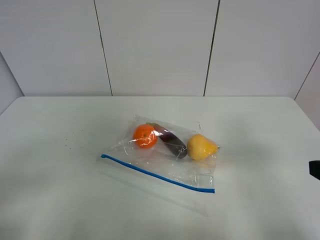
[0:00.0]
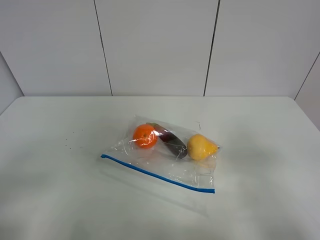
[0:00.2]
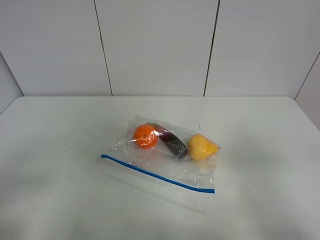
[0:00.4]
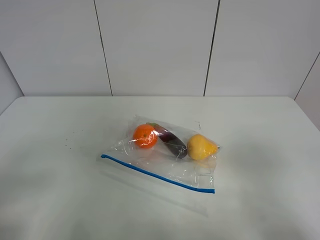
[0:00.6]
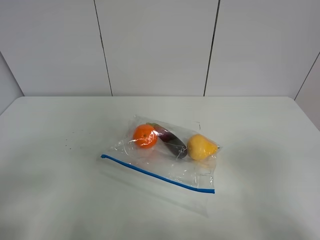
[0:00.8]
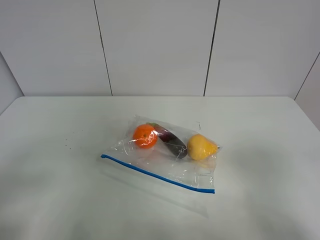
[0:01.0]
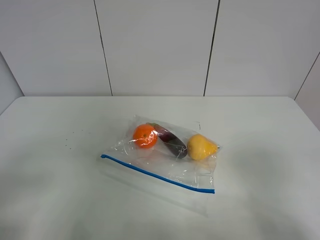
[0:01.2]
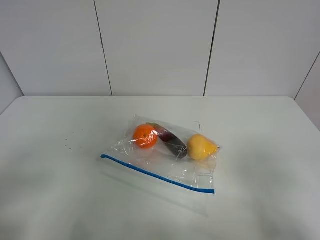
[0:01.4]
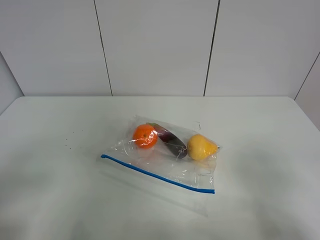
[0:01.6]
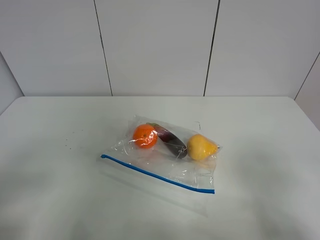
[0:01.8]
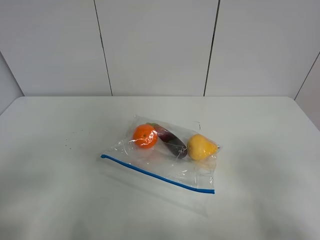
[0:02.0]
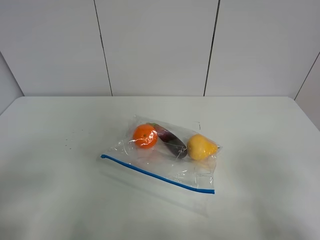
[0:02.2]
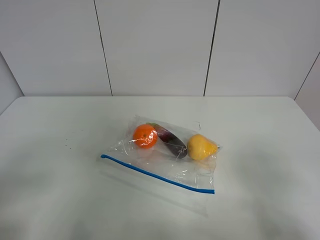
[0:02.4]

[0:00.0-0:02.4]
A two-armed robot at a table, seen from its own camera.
0:01.2 to 0:02.4: The two grippers keep their place.

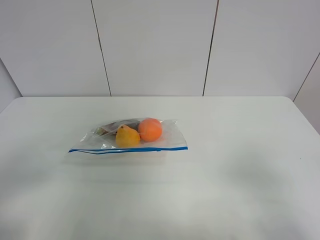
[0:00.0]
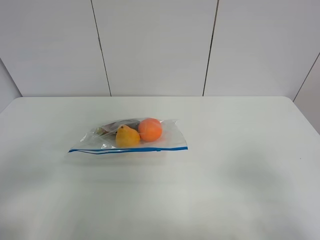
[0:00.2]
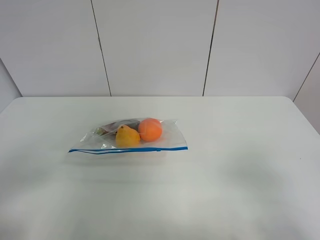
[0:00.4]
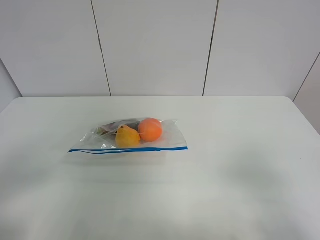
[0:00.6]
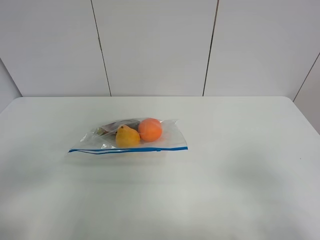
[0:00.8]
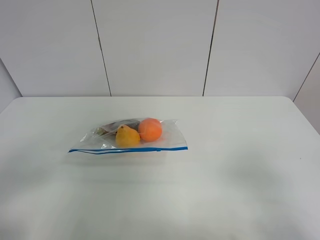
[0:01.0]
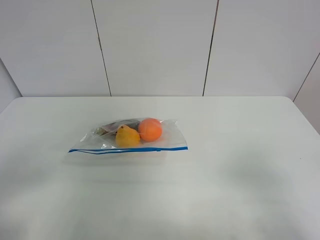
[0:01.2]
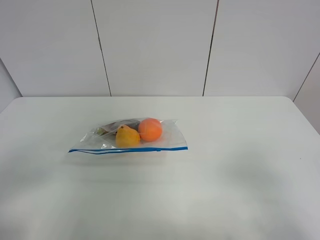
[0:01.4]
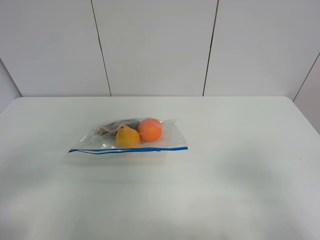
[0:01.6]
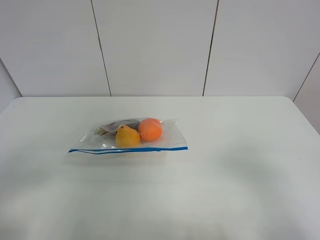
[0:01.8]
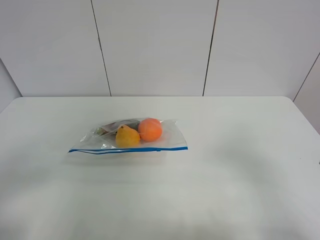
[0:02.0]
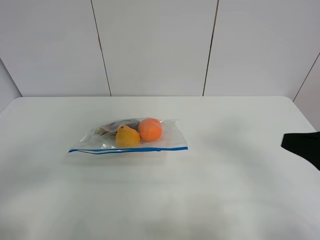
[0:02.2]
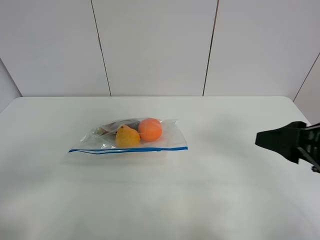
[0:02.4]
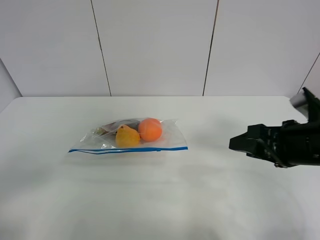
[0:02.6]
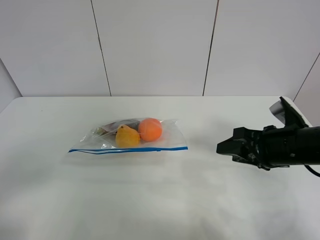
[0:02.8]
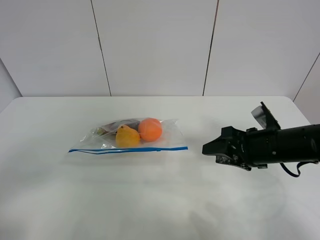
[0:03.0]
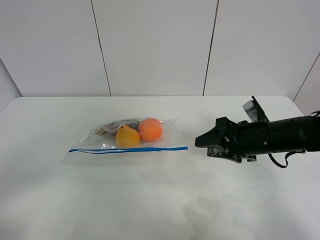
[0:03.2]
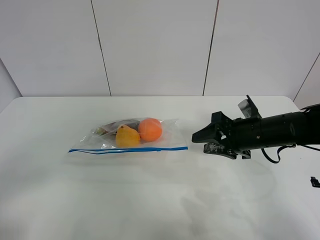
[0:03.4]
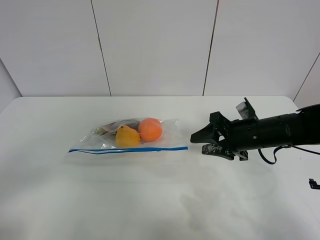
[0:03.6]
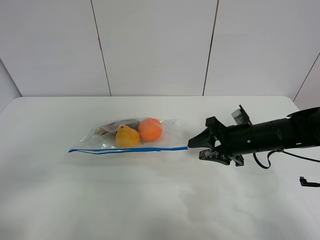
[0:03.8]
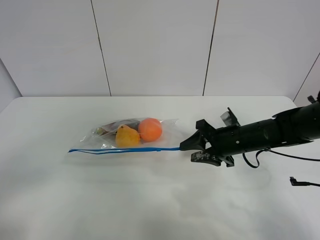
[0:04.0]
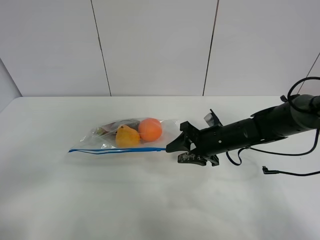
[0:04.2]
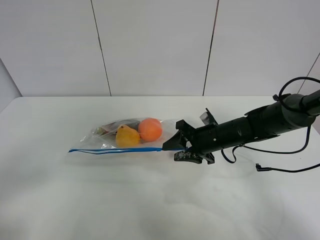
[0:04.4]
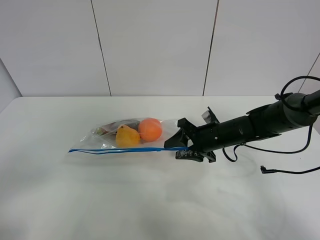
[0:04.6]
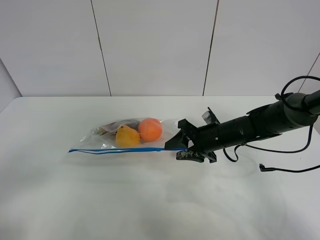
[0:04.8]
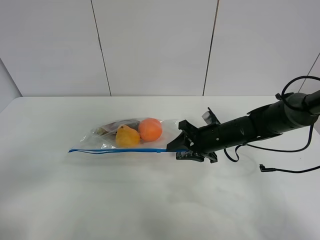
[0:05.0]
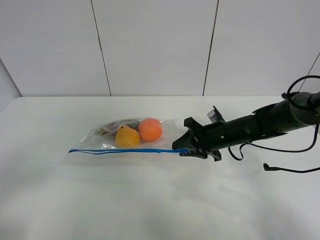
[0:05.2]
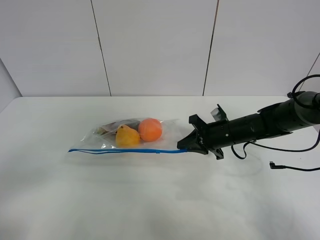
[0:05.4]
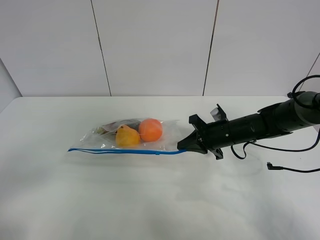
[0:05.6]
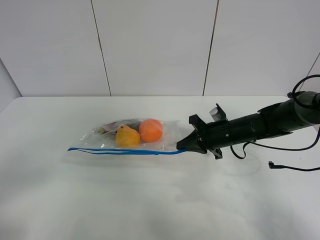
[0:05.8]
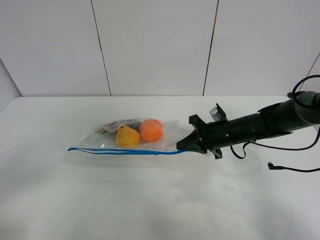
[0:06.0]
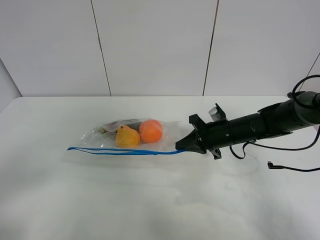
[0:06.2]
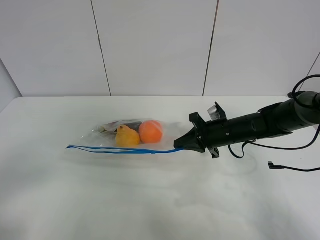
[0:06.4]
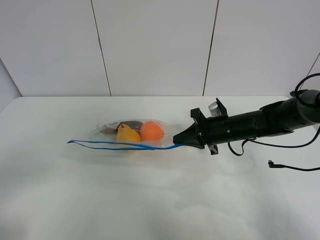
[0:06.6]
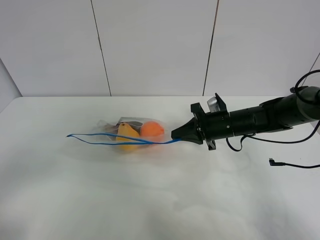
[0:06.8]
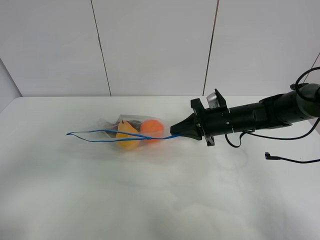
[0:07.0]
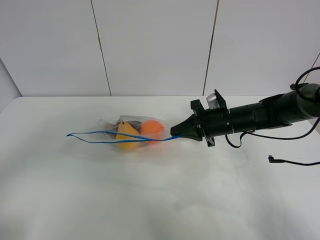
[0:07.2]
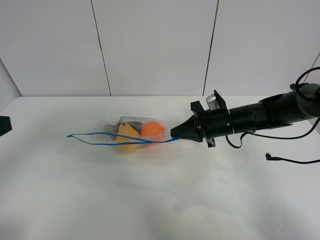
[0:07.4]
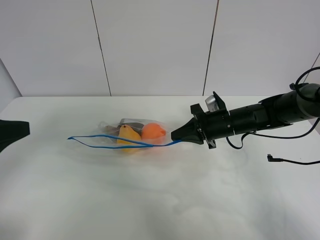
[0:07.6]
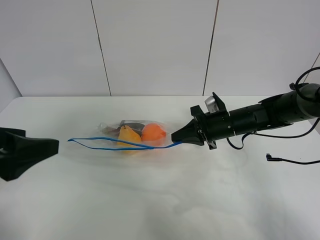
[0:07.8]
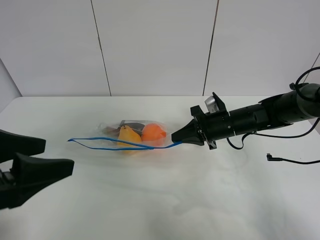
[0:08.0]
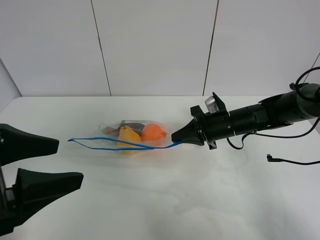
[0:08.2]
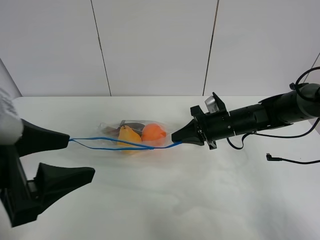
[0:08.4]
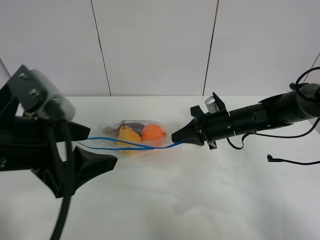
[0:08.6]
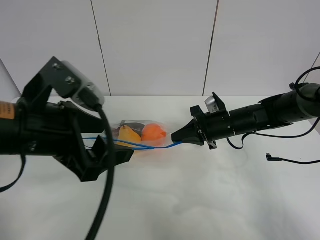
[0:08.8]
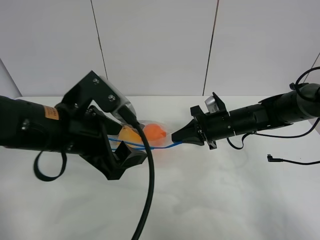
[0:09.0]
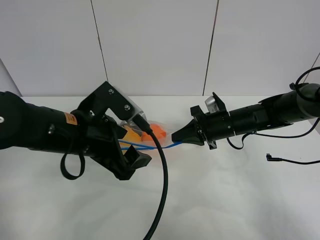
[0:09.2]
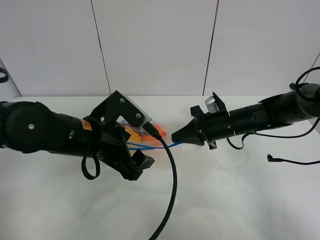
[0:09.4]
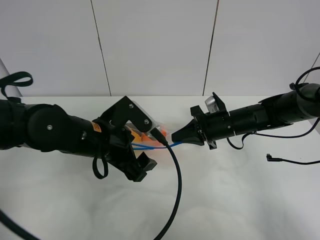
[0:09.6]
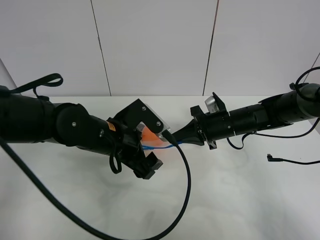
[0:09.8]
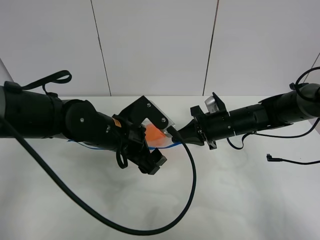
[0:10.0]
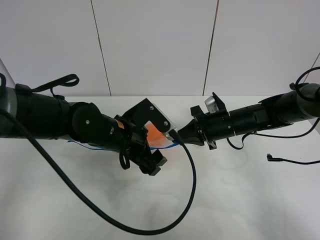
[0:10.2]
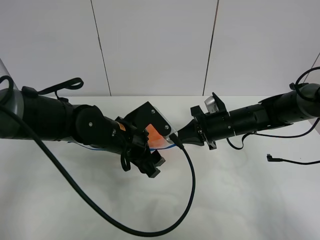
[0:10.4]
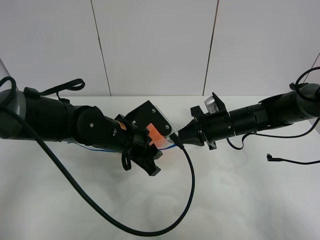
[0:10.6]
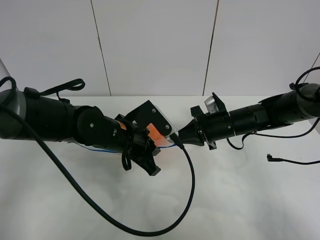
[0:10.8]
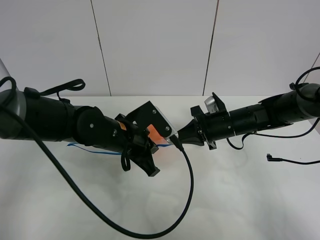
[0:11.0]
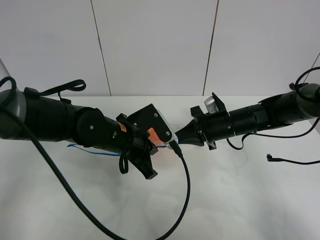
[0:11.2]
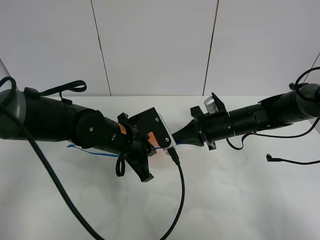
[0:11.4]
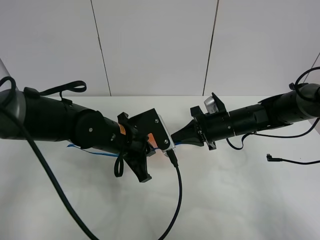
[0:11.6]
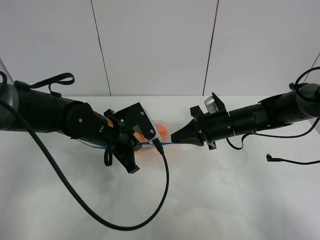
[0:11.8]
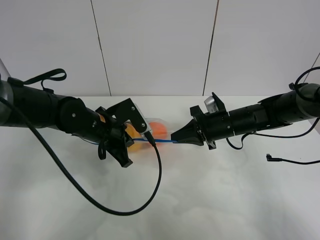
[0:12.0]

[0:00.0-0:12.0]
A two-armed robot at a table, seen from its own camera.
Step, 0:00.0 to 0:05.4: Grasp the fruit bag with right gripper.
Step, 0:05.6 to 0:07.4: Lift the fruit bag with your right gripper.
0:01.6 to 0:03.0: The right gripper is displaced forward and downward by roughly 25 cm.
0:03.0 to 0:04.4: The right gripper heads forward, to the left and downward, covering roughly 15 cm.
0:04.4 to 0:06.0: The right gripper closes.
0:06.0 to 0:07.6: The left gripper is displaced forward by about 10 cm.
0:07.6 to 0:09.0: The left gripper shifts some 15 cm to the right and forward.
0:09.0 to 0:10.4: The left gripper shifts approximately 15 cm downward, forward and to the right.
0:10.4 to 0:12.0: The left gripper is displaced to the left by about 5 cm, and closes up.

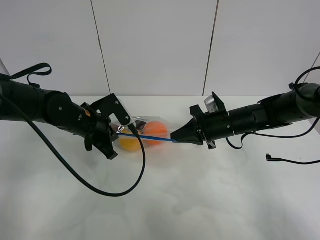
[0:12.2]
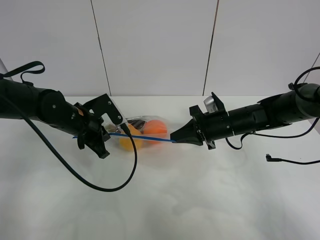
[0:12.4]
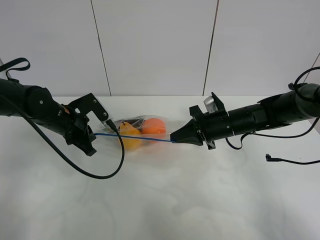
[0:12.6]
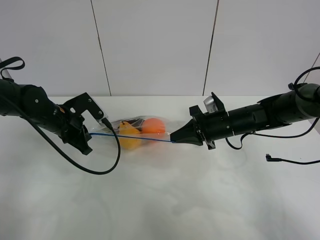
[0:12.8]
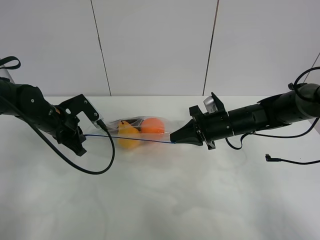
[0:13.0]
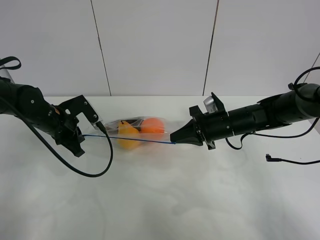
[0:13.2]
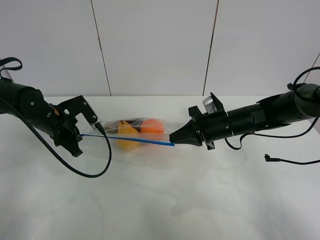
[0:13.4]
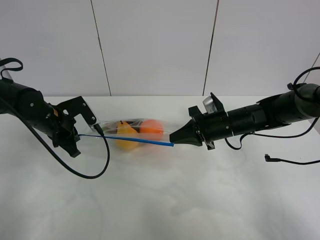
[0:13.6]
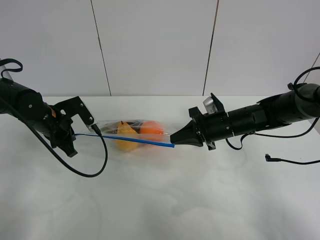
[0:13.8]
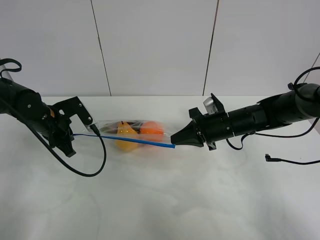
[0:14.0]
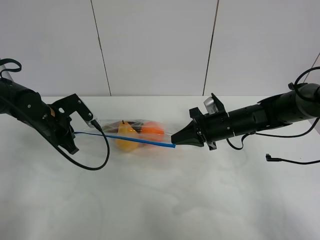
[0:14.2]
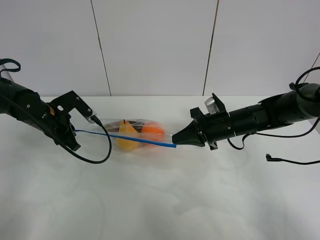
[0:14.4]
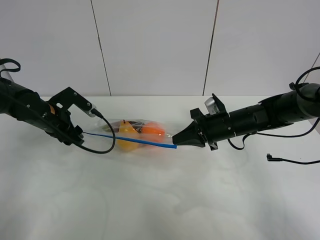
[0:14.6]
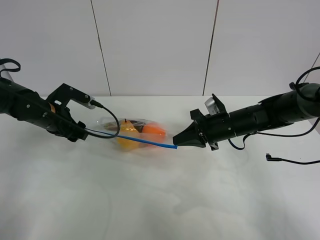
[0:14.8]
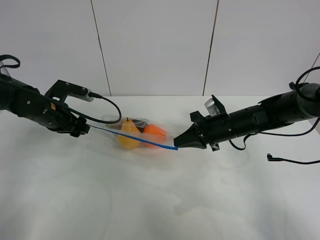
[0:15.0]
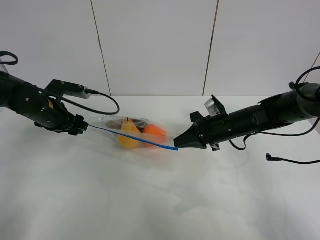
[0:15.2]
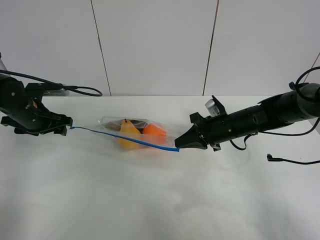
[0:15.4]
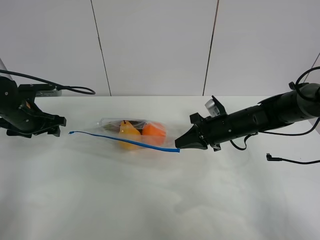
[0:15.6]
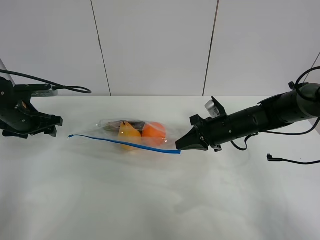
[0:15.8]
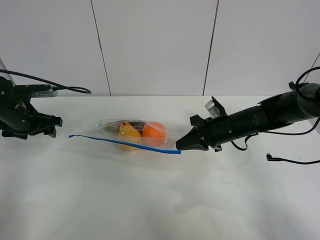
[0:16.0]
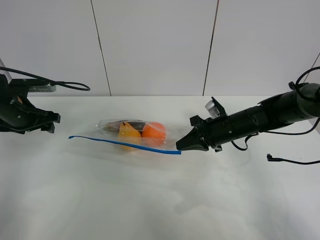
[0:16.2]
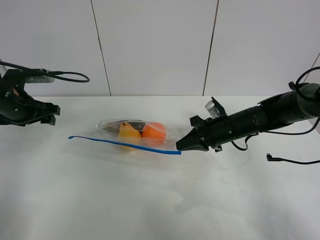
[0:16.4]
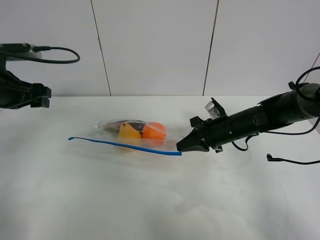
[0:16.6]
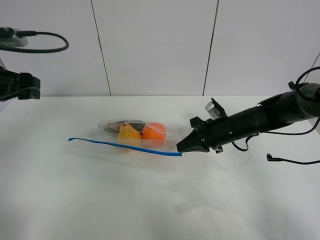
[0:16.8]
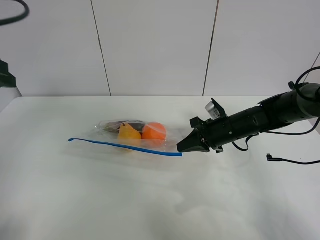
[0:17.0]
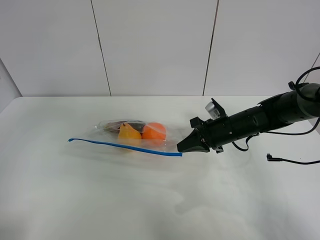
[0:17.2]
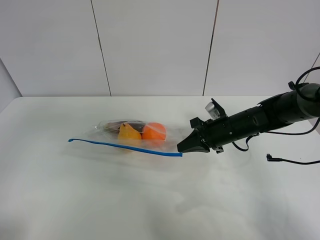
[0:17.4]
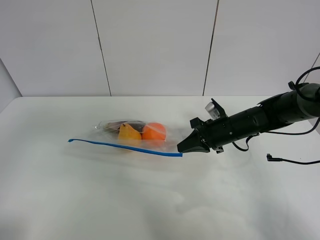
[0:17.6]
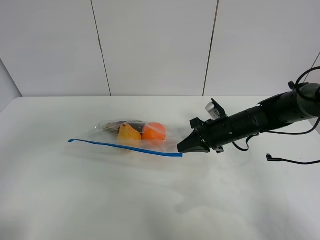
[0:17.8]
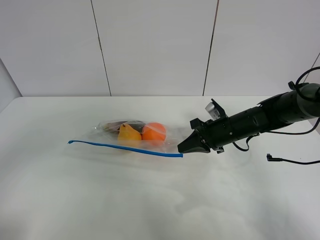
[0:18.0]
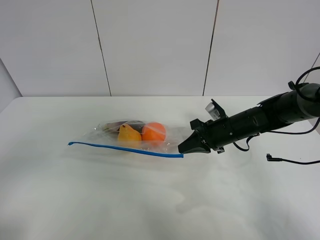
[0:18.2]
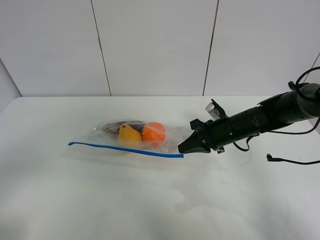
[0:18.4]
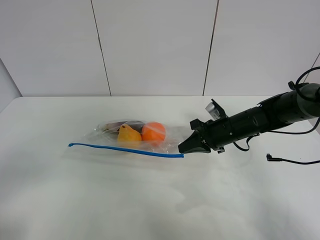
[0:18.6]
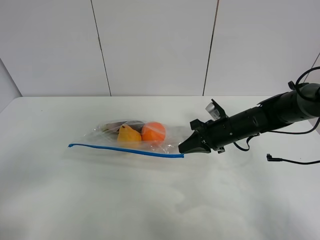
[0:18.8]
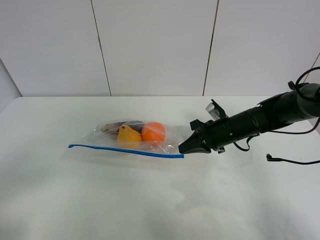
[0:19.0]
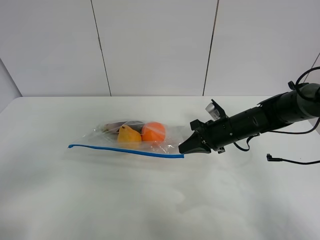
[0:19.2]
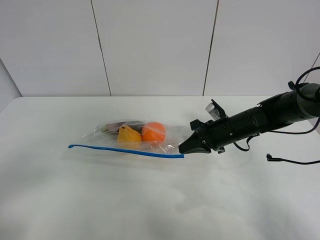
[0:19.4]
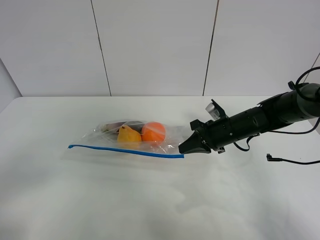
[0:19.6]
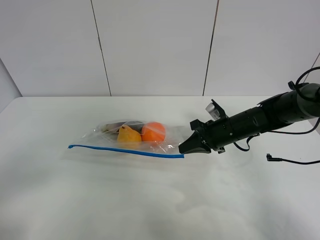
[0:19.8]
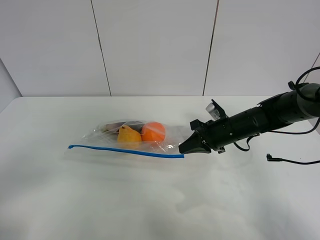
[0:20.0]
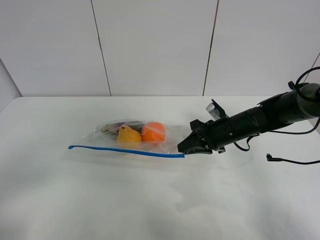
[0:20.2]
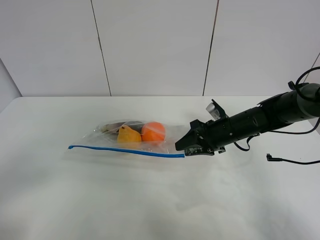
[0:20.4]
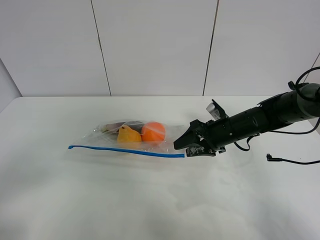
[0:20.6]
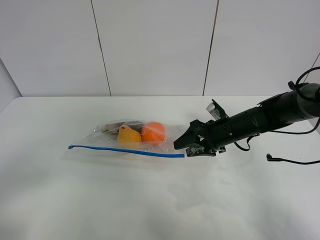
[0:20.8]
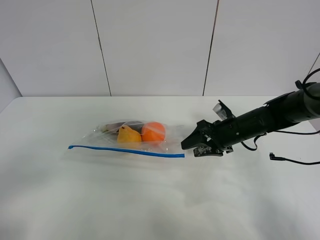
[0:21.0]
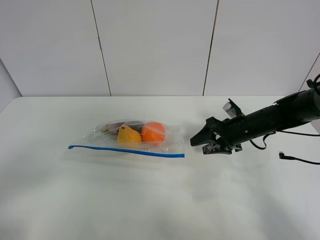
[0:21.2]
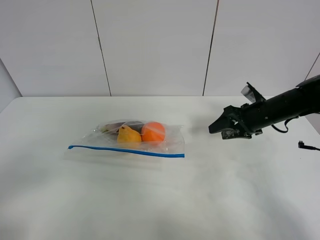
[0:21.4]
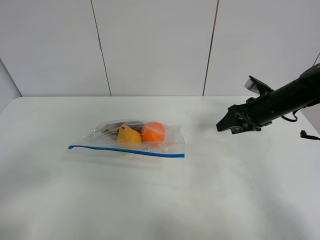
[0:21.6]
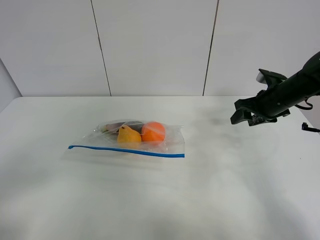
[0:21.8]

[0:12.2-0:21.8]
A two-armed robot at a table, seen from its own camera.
Step, 0:12.2 to 0:14.6: Pull the fruit bag with left gripper.
0:12.2 to 0:13.8: The left gripper heads to the left, covering about 10 cm.
0:13.8 to 0:15.4: The left gripper shifts by about 5 cm, and opens.
0:15.4 to 0:17.0: The left gripper moves upward and backward, roughly 20 cm.
0:17.0 to 0:18.6: The left gripper heads backward, covering some 20 cm.
0:20.2 to 0:21.8: The right gripper heads to the right and upward, covering roughly 15 cm, and opens.
